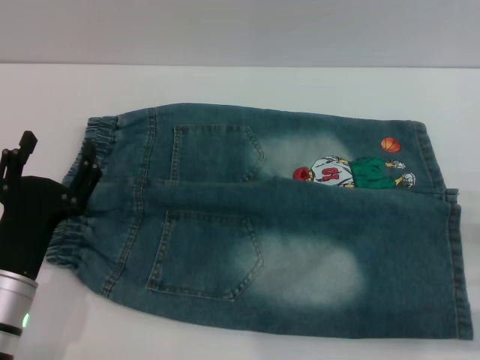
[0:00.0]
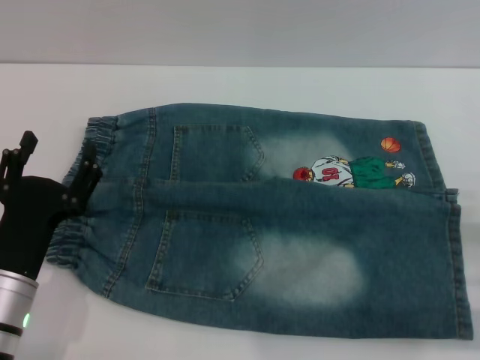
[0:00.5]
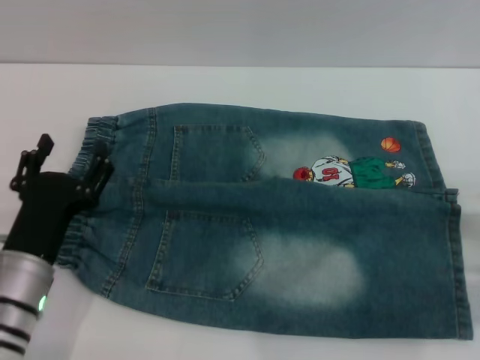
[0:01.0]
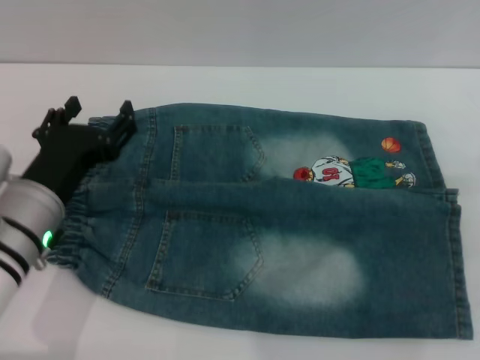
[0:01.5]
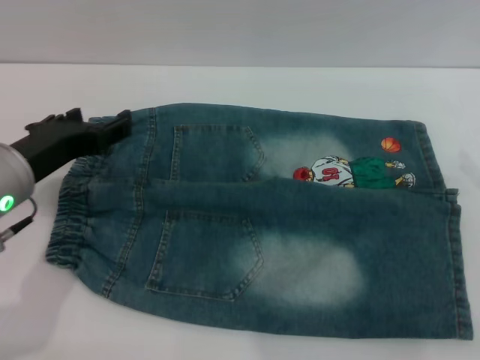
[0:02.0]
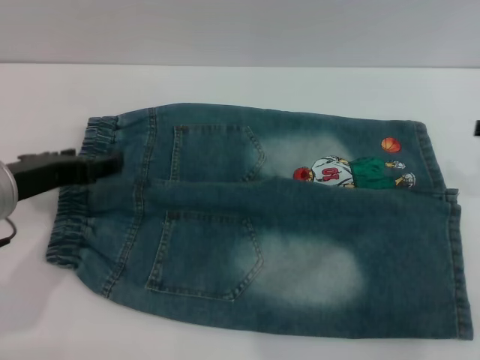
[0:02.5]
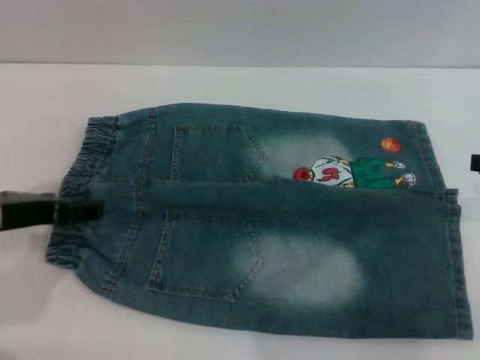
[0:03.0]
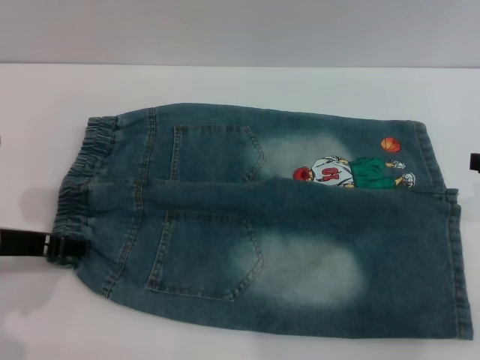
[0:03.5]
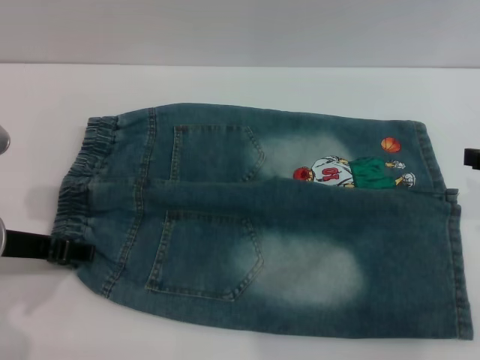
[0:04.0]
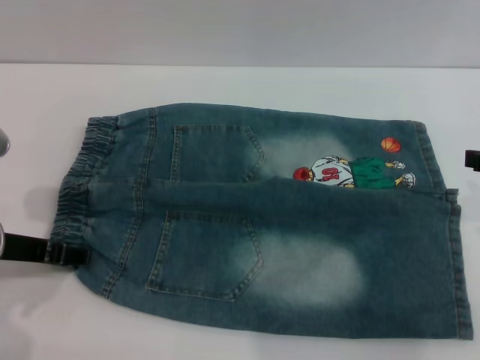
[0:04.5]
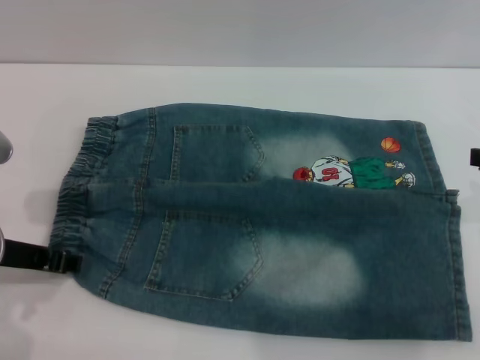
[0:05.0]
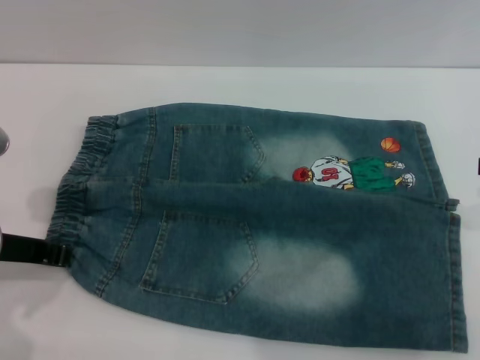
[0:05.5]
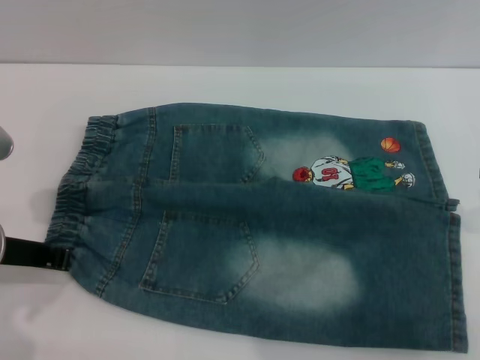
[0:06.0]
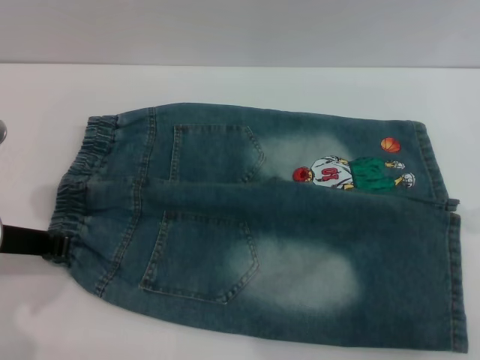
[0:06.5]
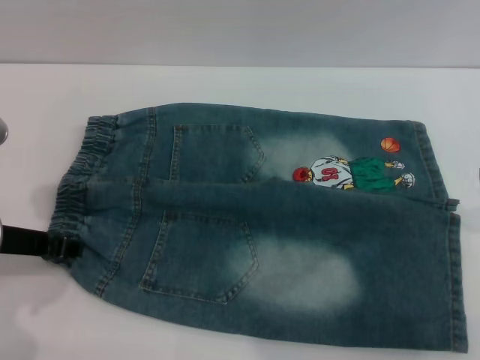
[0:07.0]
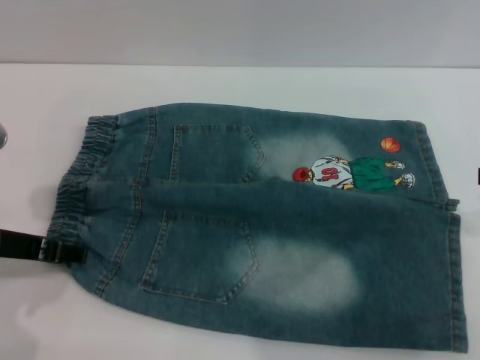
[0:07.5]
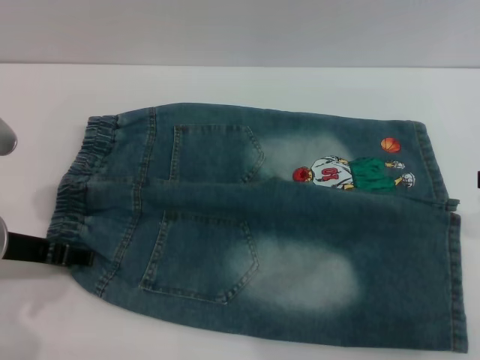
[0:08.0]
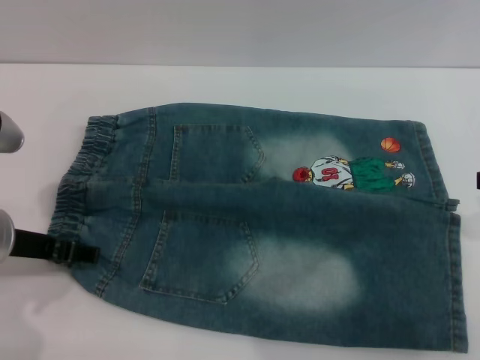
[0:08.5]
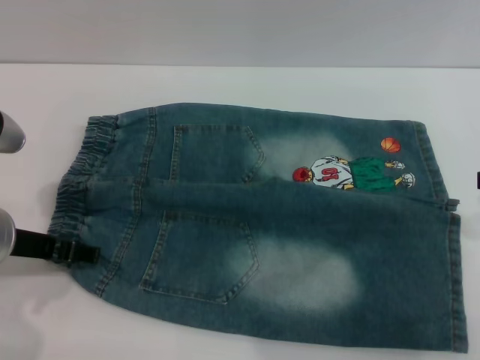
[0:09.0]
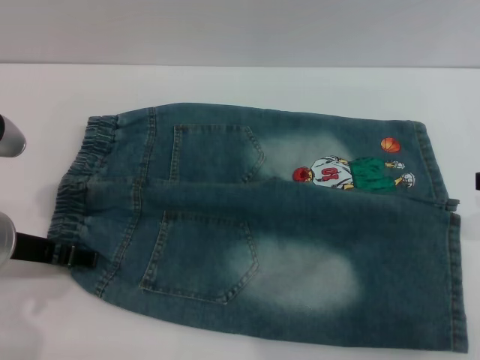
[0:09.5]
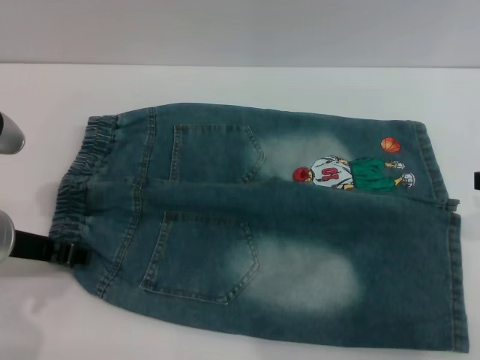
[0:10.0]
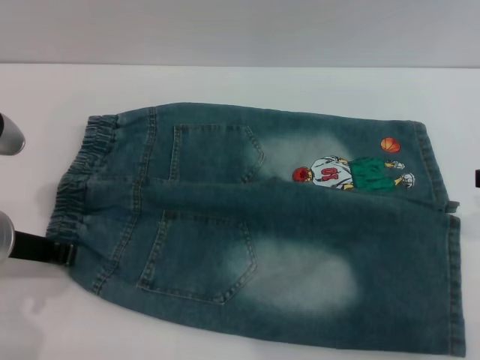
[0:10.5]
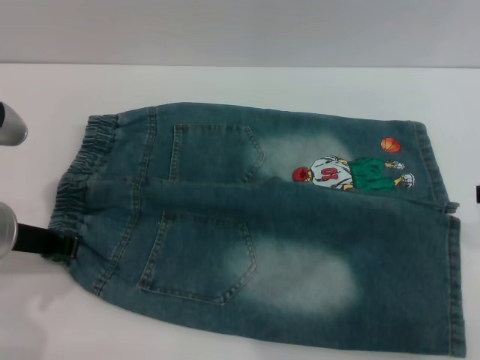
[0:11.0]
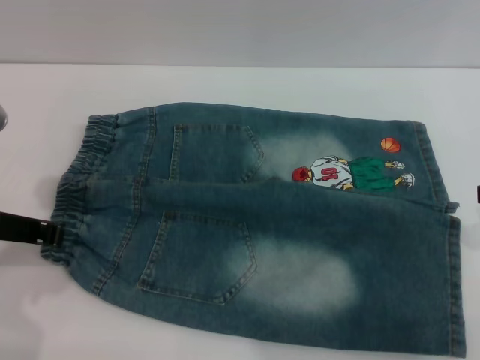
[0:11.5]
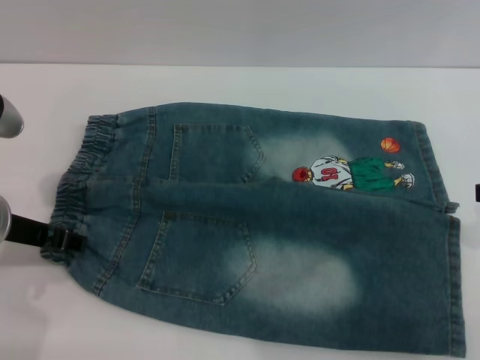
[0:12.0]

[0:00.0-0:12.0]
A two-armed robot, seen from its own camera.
0:00.0 to 0:02.0: The left gripper goes some 15 cm upward and forward.
0:04.0 to 0:06.0: The left gripper closes.
0:06.0 to 0:08.0: The left gripper opens its fingers.
0:08.0 to 0:10.0: Neither gripper changes place.
0:10.0 to 0:12.0: The left gripper closes up.

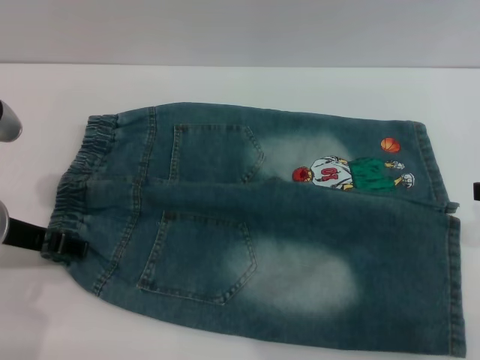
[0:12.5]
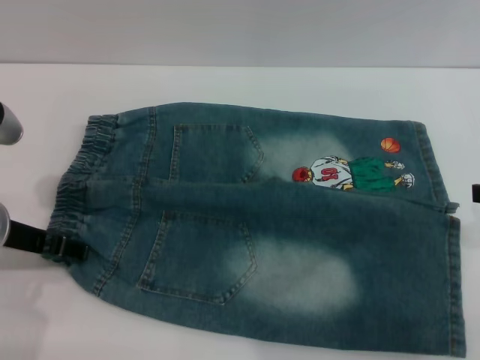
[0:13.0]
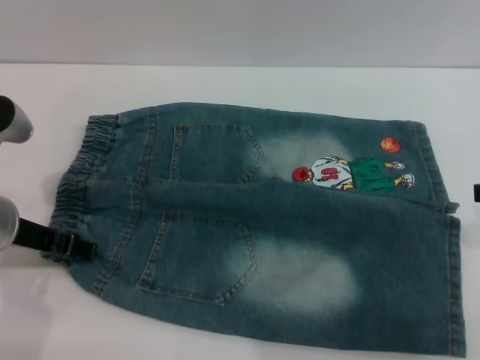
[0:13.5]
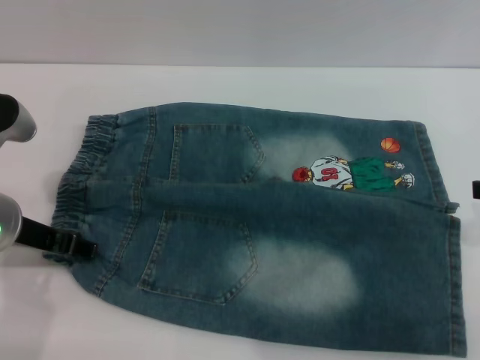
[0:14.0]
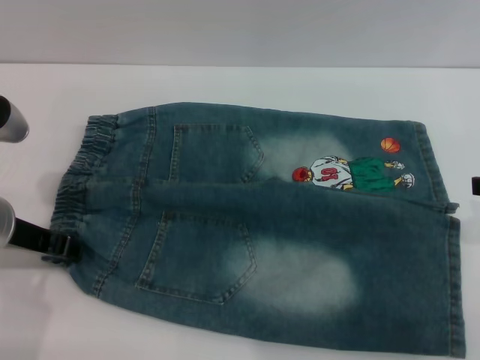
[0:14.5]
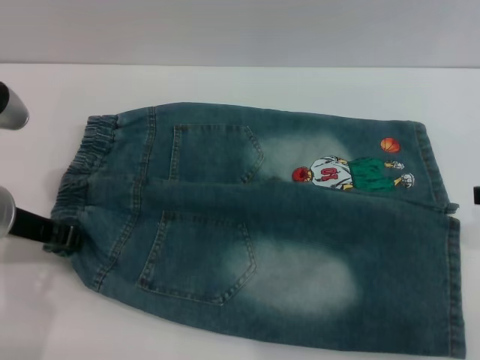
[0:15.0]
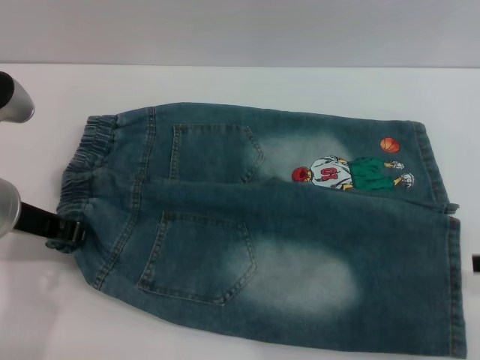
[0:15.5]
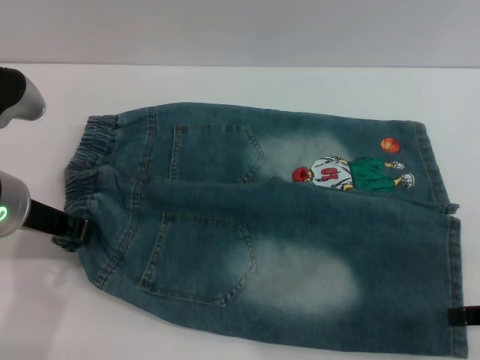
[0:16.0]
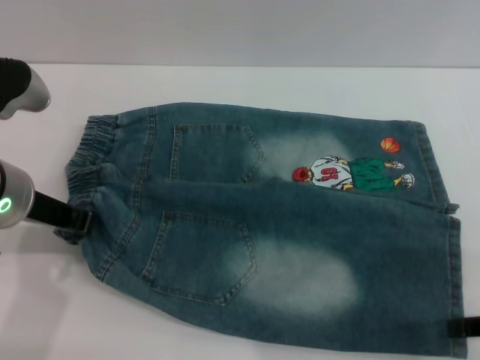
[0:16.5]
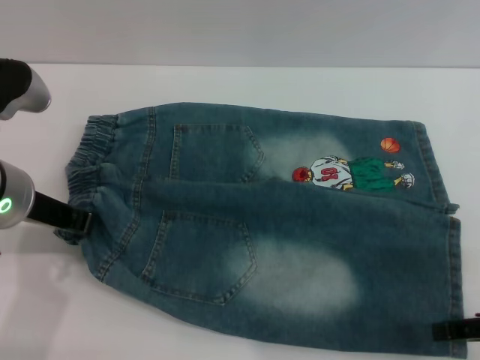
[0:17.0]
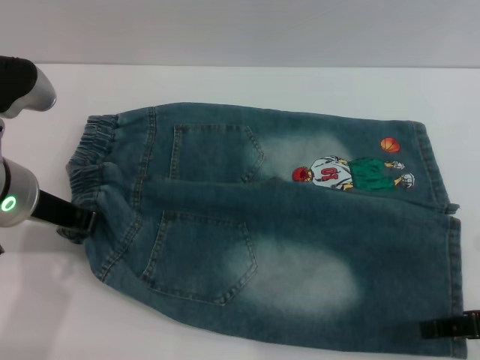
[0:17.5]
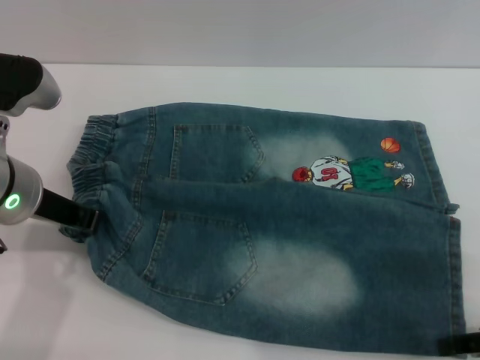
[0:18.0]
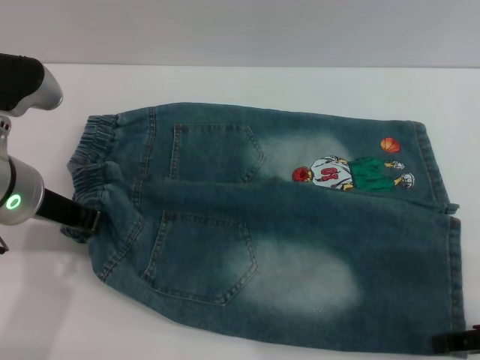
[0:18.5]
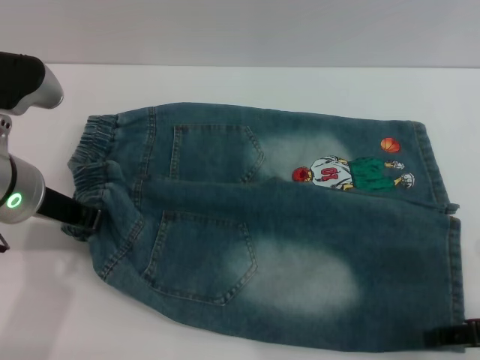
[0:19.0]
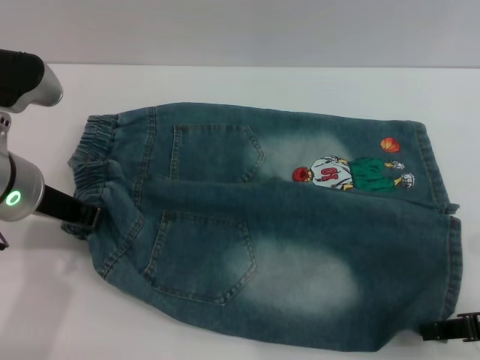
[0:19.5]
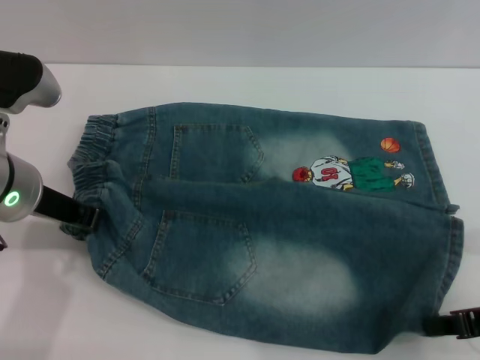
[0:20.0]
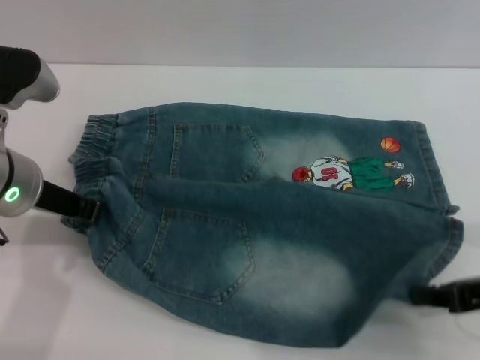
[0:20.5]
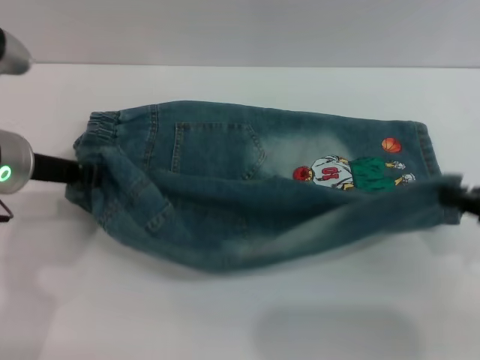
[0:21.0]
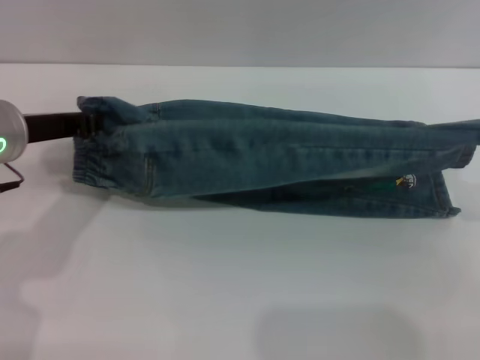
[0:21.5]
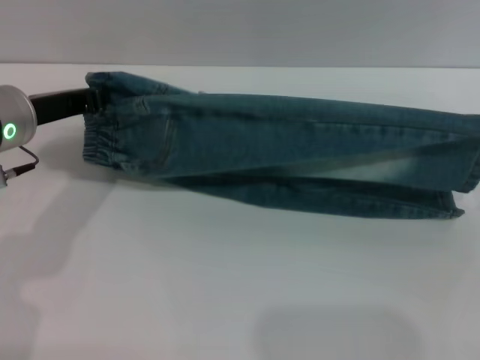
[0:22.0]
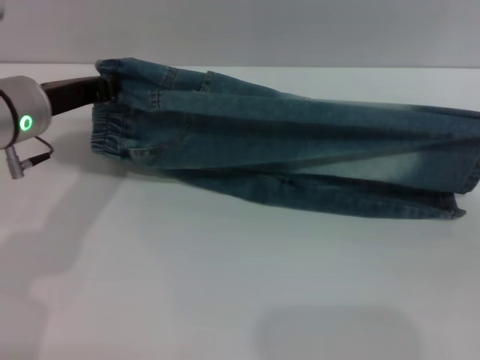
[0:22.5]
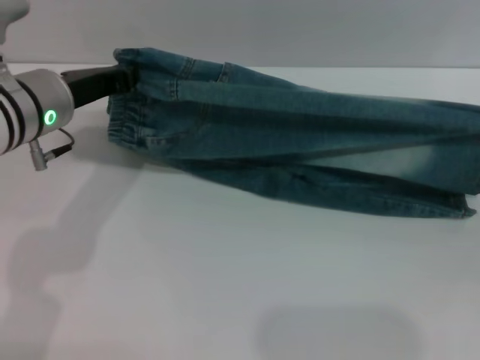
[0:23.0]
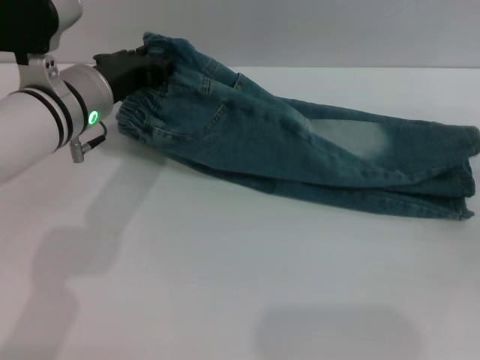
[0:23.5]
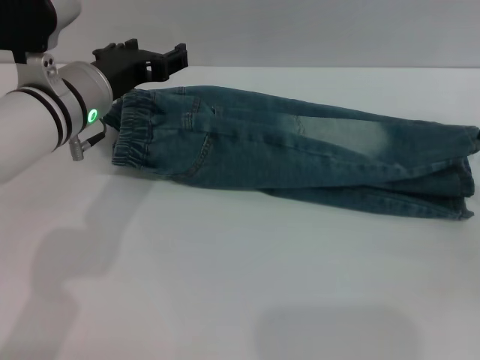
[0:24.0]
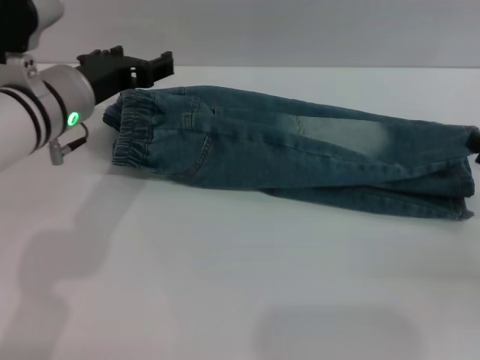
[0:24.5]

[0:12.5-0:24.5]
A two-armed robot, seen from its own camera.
Step, 0:12.5 to 0:24.0: Fold the bottom of the pants upward with both grippers.
0:12.5 to 0:14.5: Both grippers stay put.
0:14.5 to 0:16.5: The right gripper goes about 5 cm downward. Meanwhile the left gripper closes its fingers.
0:16.5 to 0:18.5: There are only small adjustments of the grippers.
0:18.5 to 0:20.5: The right gripper closes.
0:20.5 to 0:22.5: The right gripper heads to the right, covering some 10 cm.
0:22.5 to 0:24.5: The left gripper opens its fingers. The right gripper shifts roughly 5 cm downward, and opens up.

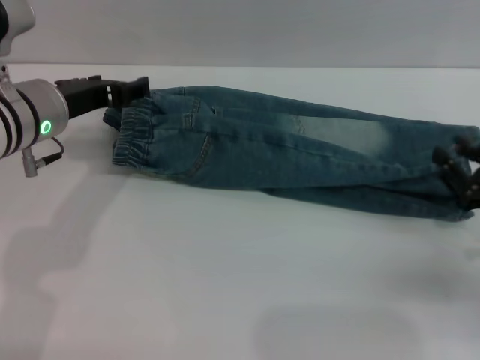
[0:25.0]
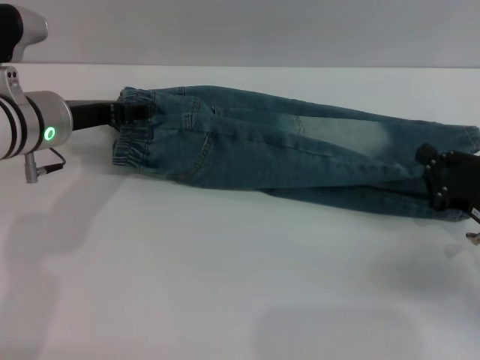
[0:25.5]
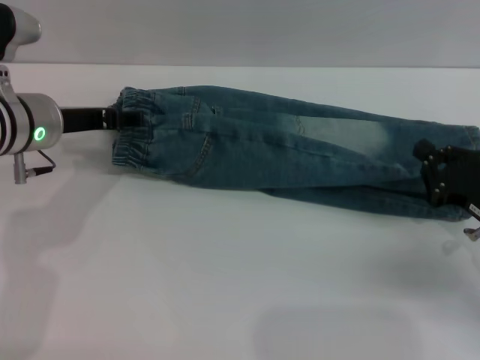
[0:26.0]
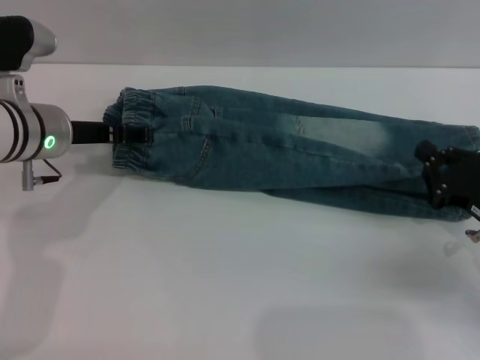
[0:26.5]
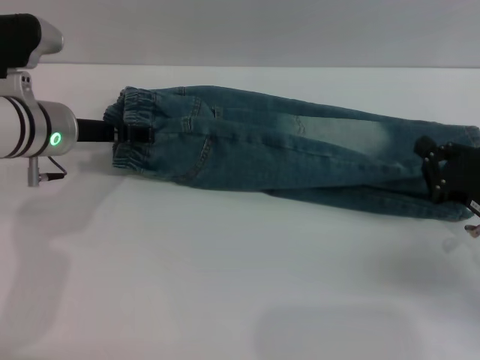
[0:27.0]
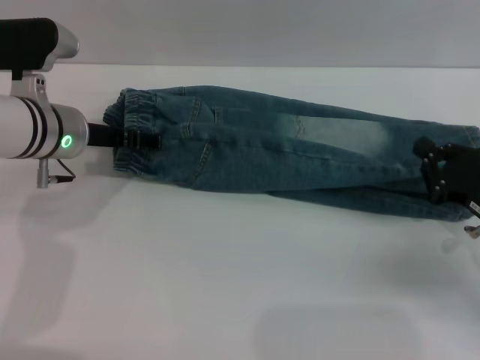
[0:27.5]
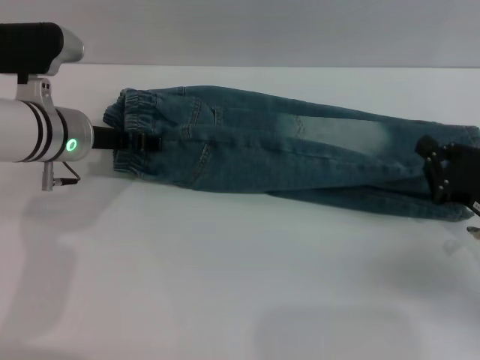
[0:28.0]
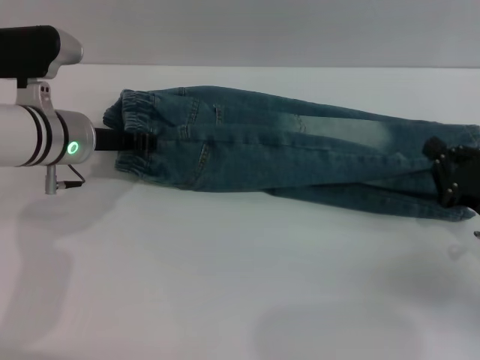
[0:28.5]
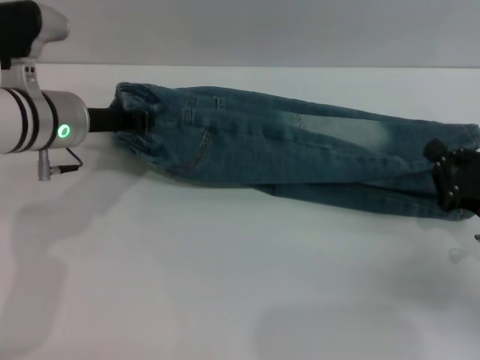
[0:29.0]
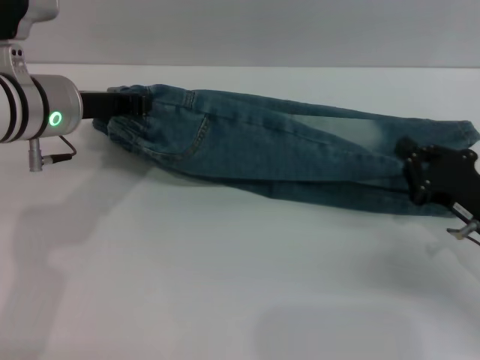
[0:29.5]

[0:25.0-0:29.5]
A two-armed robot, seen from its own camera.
0:25.0 to 0:27.0: The right gripper closes its fingers.
0:27.0 to 0:29.5: The left gripper closes up.
